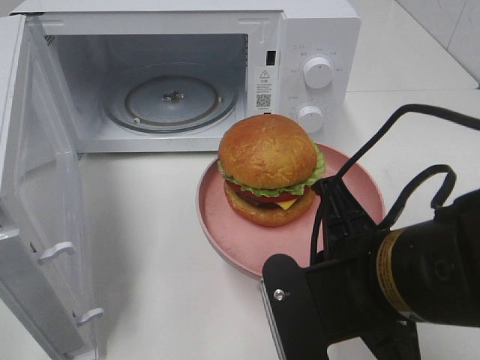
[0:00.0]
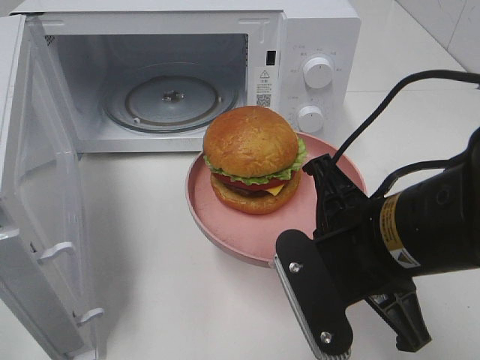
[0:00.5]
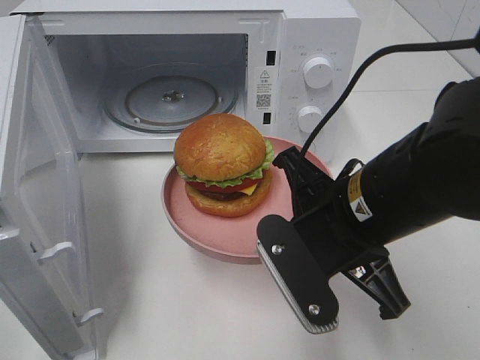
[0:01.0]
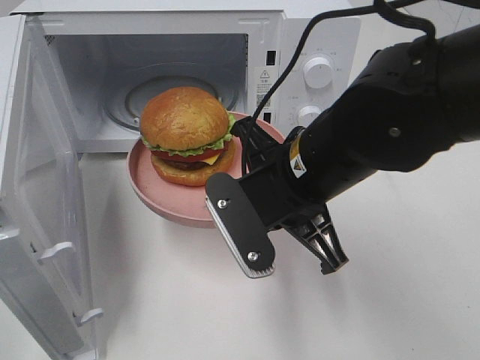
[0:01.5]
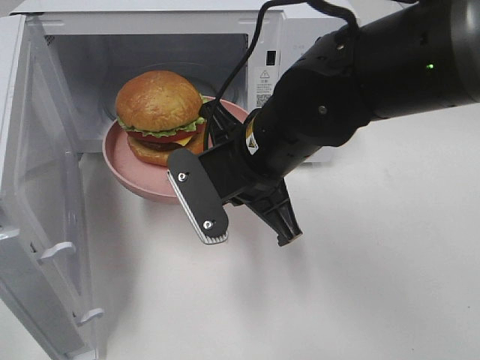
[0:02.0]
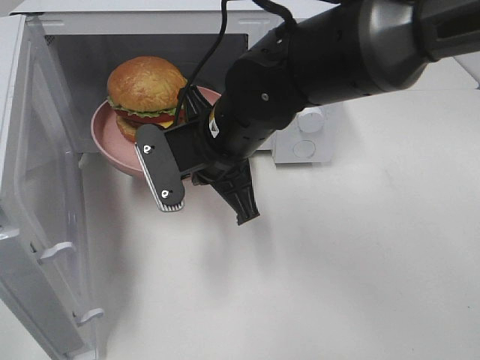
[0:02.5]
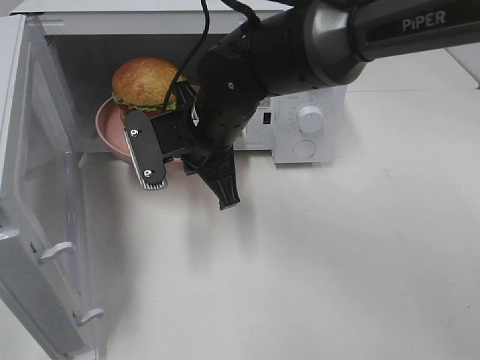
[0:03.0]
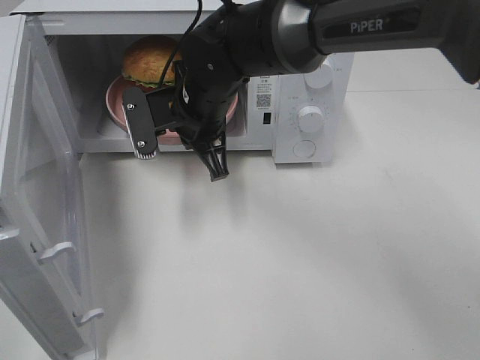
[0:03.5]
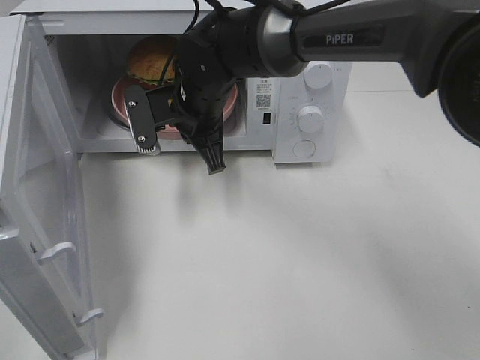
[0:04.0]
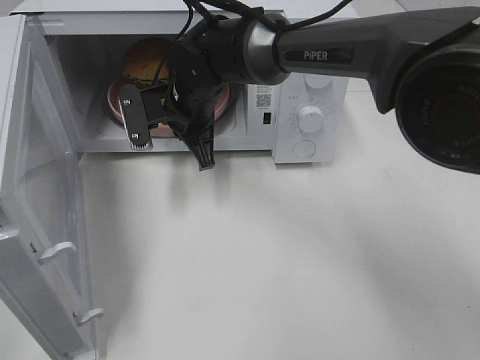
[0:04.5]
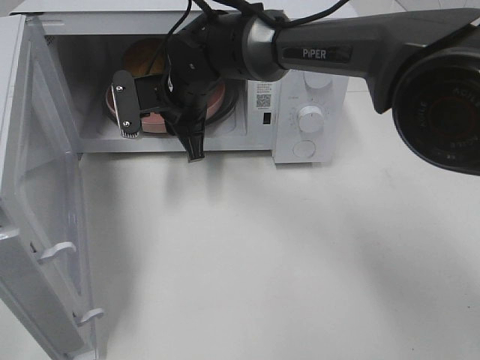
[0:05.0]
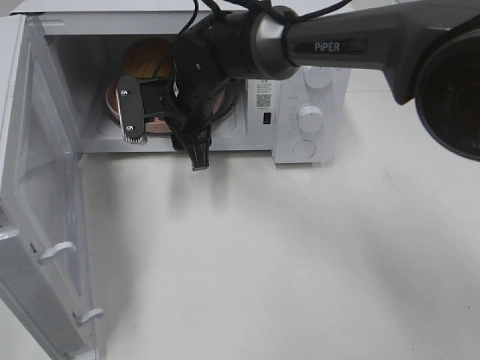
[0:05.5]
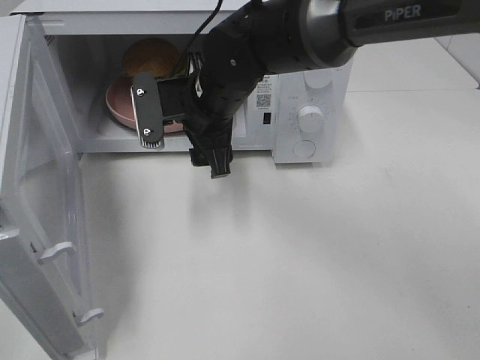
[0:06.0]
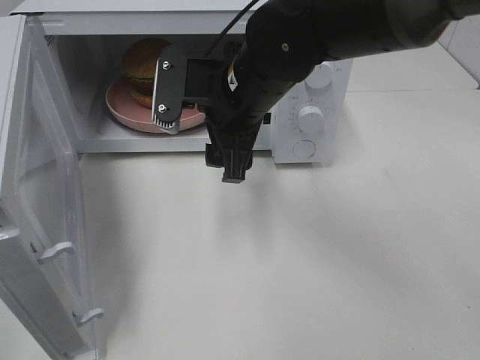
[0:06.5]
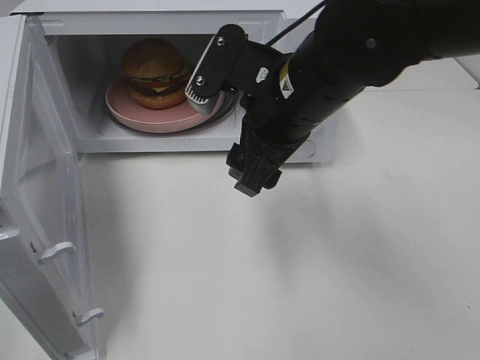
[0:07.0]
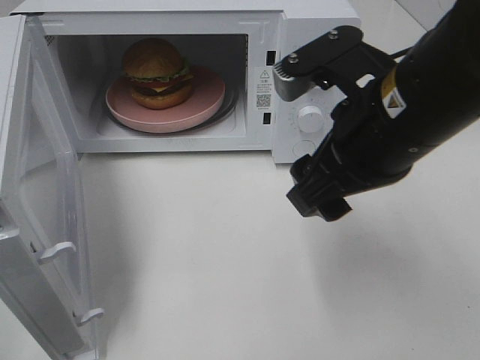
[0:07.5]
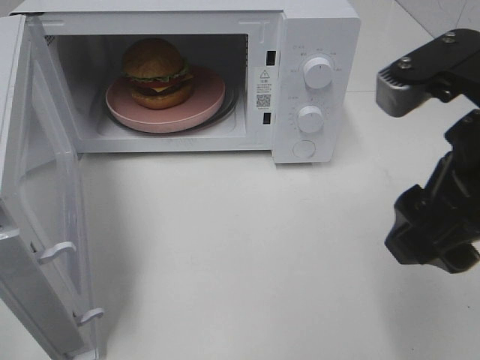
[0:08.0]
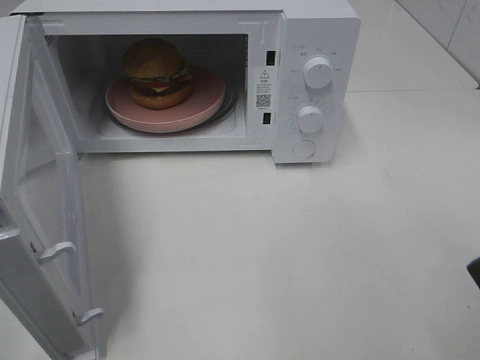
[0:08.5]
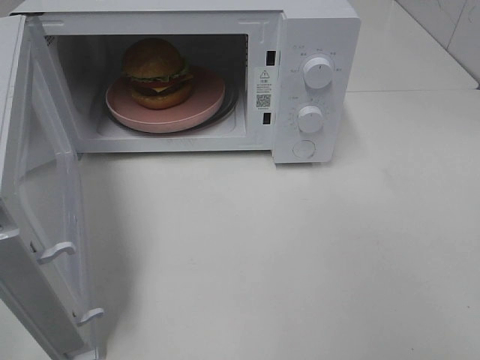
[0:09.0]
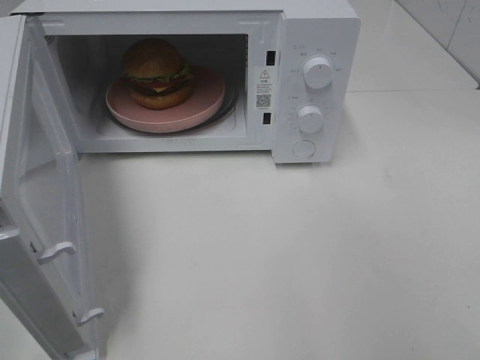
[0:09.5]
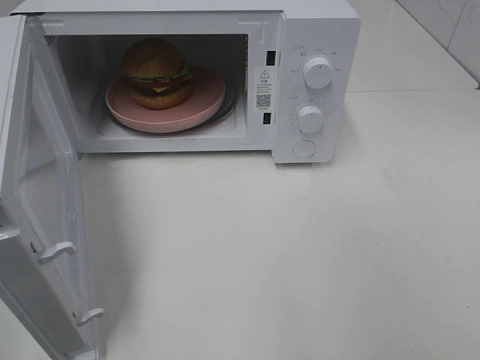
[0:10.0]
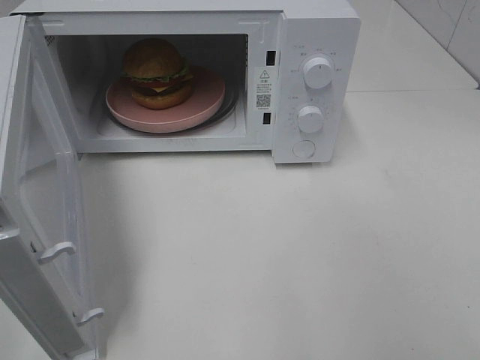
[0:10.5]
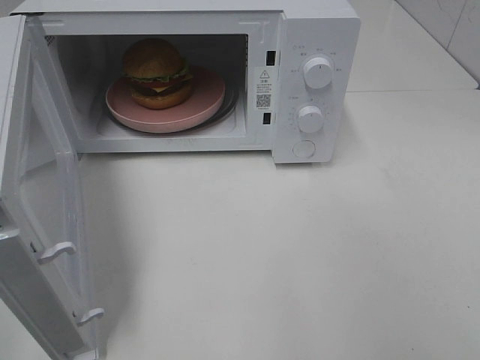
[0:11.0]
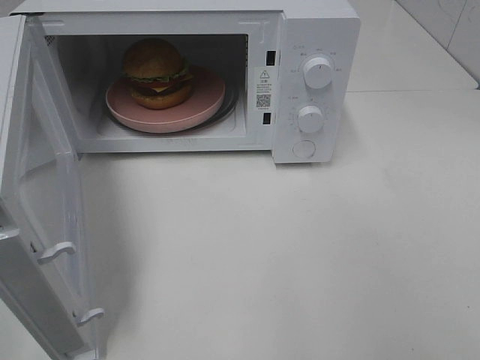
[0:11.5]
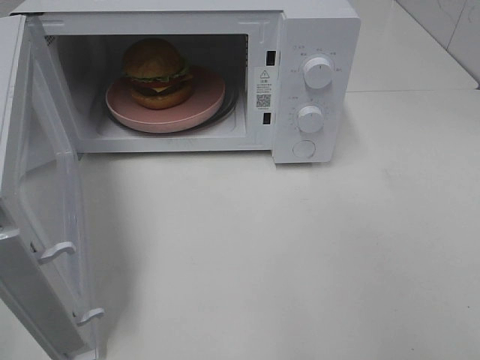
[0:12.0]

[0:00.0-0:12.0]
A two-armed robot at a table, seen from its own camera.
Task of the whole recording: Heat the burger.
Step, 0:00.0 to 0:04.5: Right hand: place the plate in the microwave.
0:00.0 to 0:02.0: The right gripper is displaced forward and to the left by roughly 15 cm.
0:02.0 to 0:04.0: The right gripper heads forward and to the left, covering about 15 cm.
0:04.0 to 0:06.0: The right gripper opens its fingers.
0:06.0 to 0:08.0: The right gripper shifts roughly 30 cm backward, to the right and upward.
0:08.0 to 0:10.0: The right gripper shifts approximately 20 cm backward and to the right.

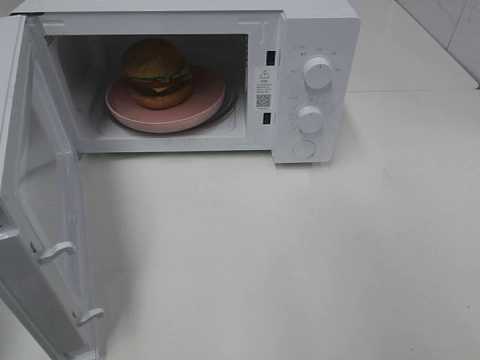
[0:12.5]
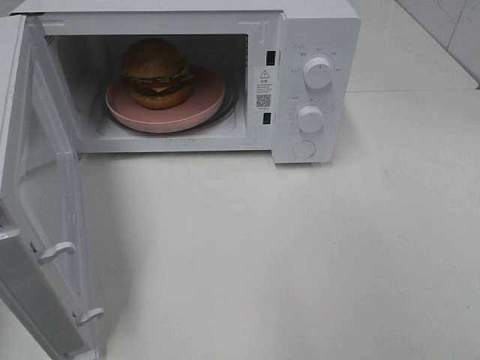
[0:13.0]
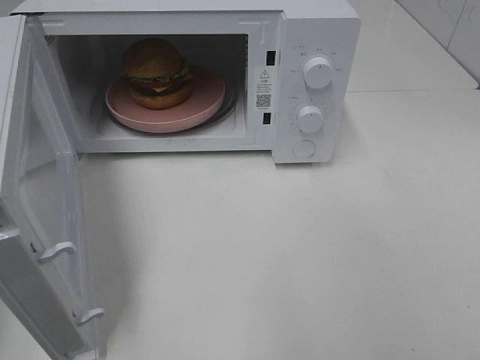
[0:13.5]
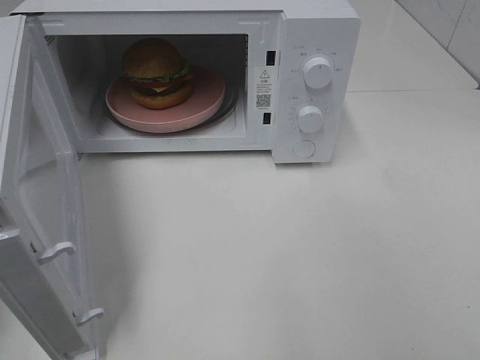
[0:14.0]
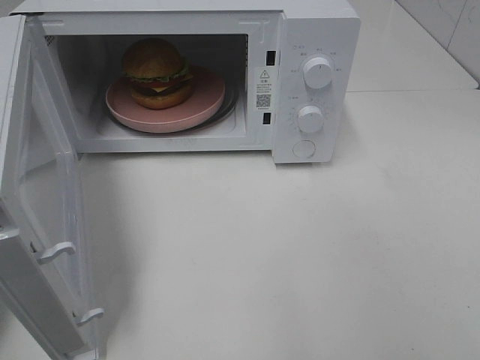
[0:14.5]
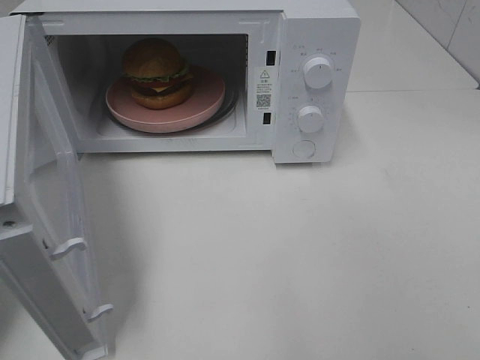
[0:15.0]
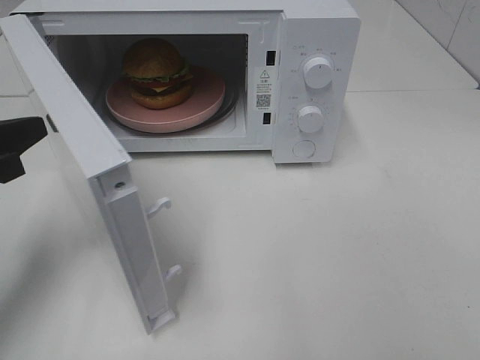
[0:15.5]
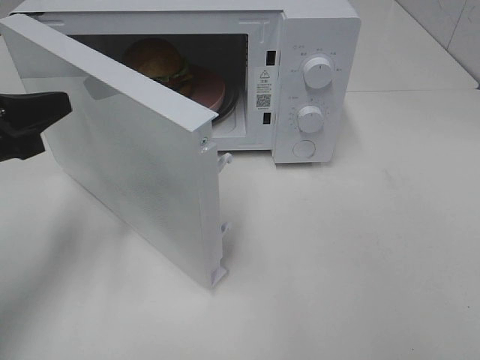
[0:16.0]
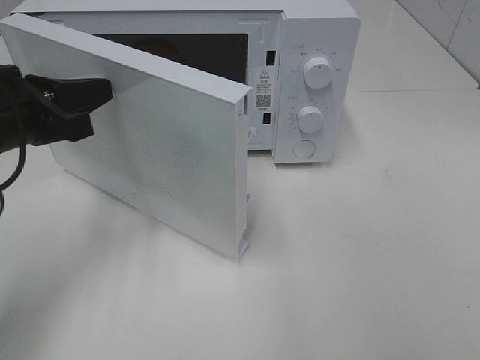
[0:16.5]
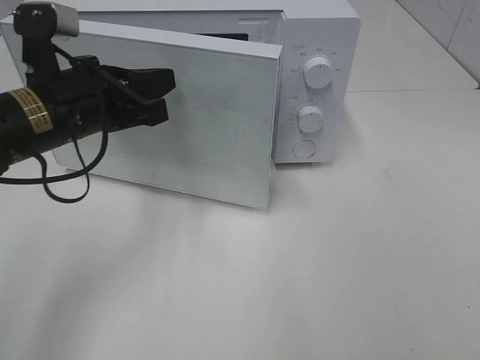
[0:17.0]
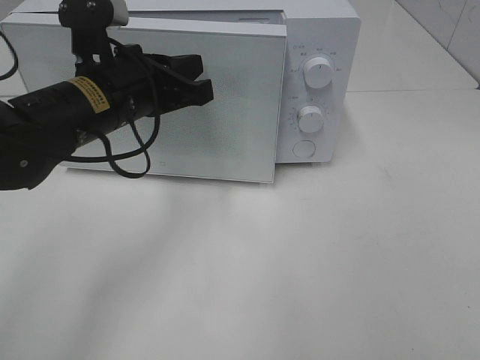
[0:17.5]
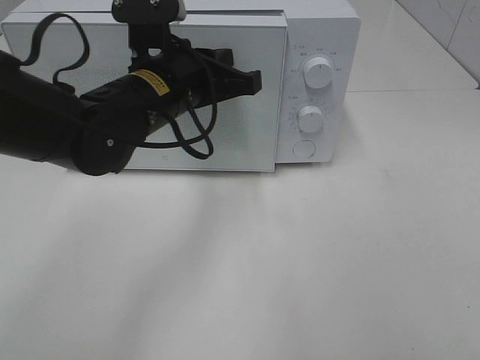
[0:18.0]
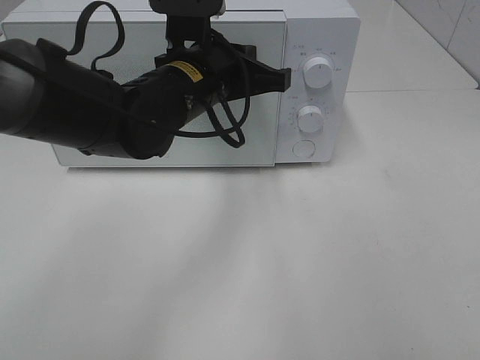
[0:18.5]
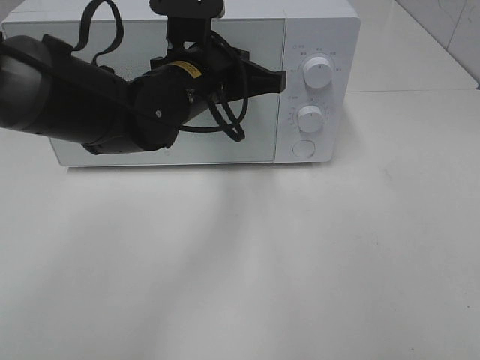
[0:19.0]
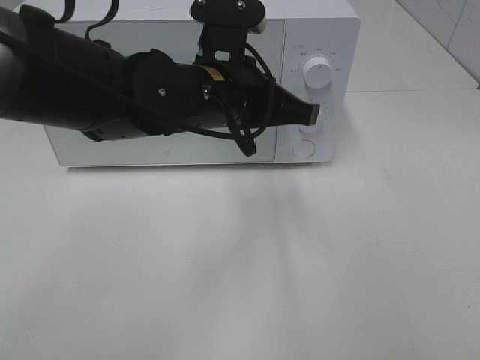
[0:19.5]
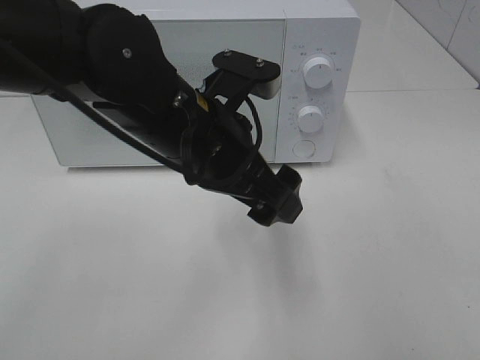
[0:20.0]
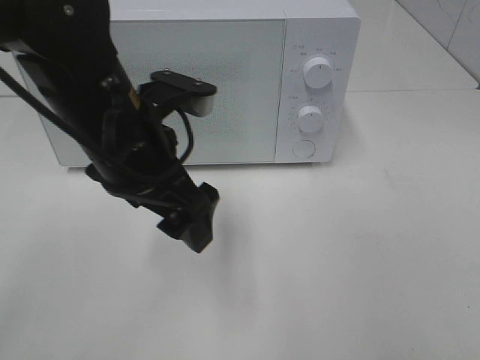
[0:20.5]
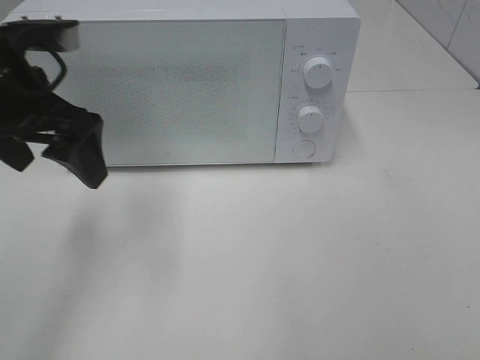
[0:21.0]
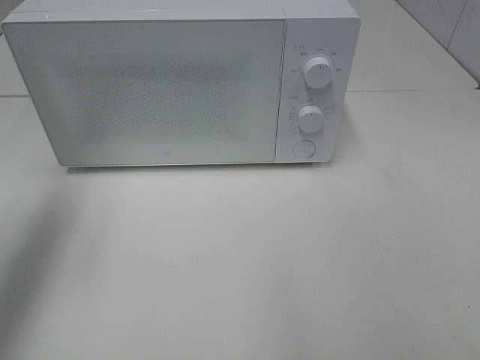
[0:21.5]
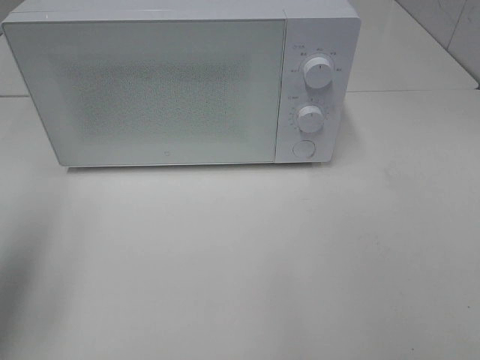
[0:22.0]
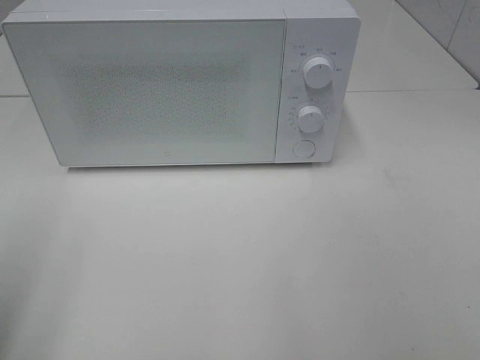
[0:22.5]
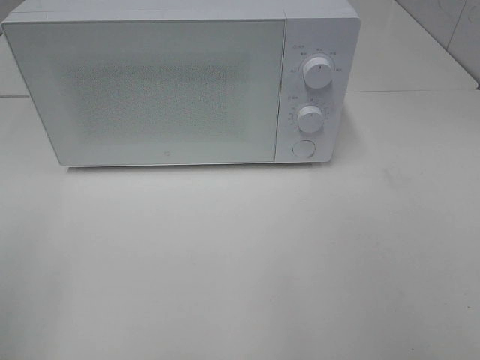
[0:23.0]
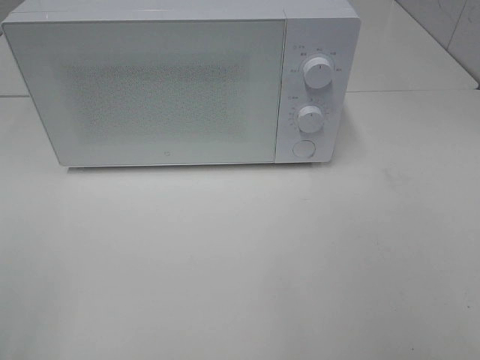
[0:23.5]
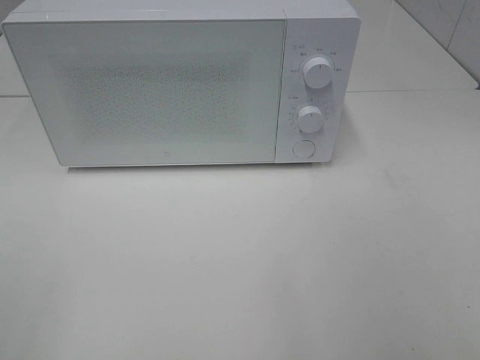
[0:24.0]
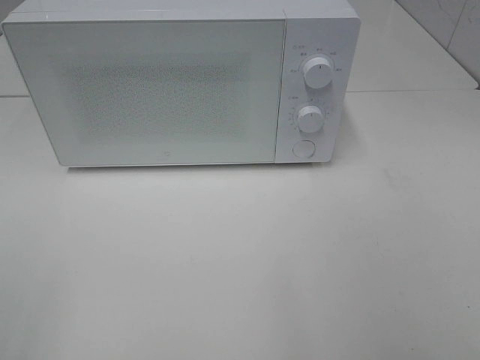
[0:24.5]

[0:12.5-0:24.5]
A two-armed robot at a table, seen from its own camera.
Task of the whole recording: Heat the burger.
Step, 0:12.5 to 0:19.0: Left hand: close the microwave door.
0:14.5 to 0:16.5: The left gripper travels to the right and forward by approximately 10 cm.
0:16.5 to 0:18.5: The left gripper is displaced to the right and forward by about 20 cm.
0:18.5 to 0:20.5: The left gripper shifts roughly 10 cm backward and to the left, and opens.
0:20.5 to 0:22.5: The left gripper shifts approximately 25 cm to the left and backward.

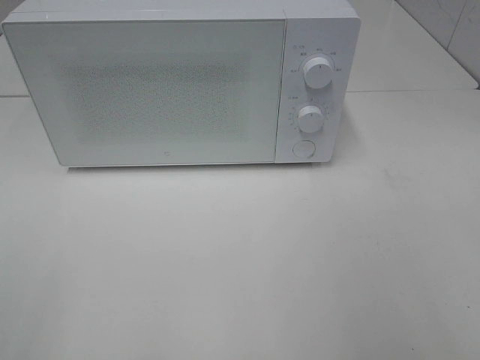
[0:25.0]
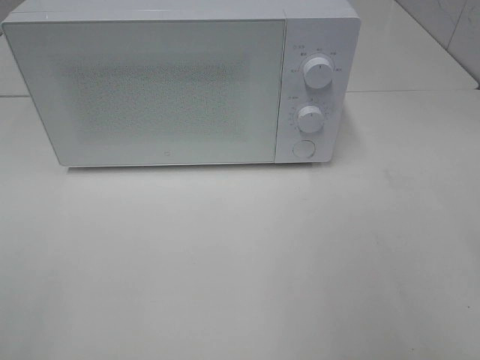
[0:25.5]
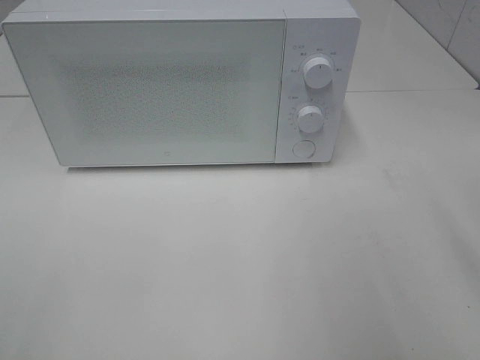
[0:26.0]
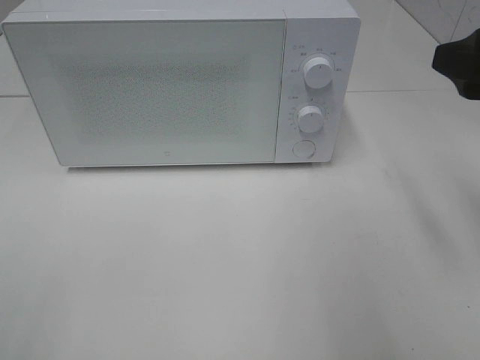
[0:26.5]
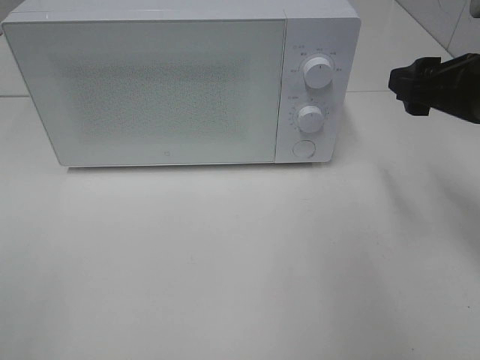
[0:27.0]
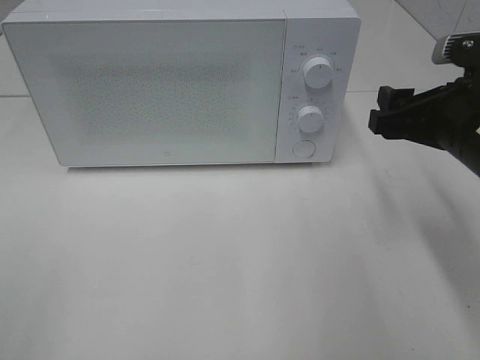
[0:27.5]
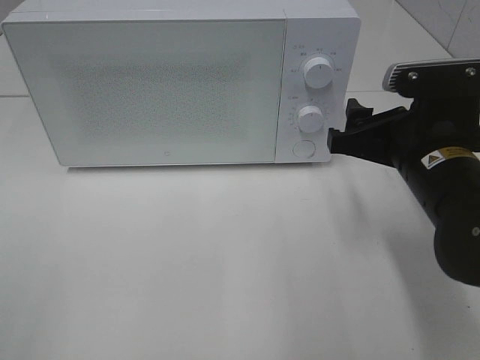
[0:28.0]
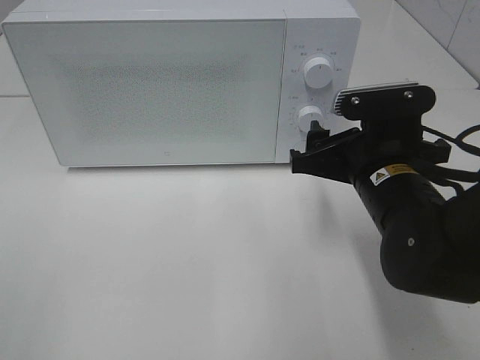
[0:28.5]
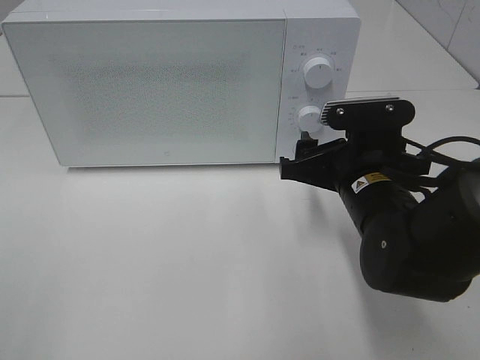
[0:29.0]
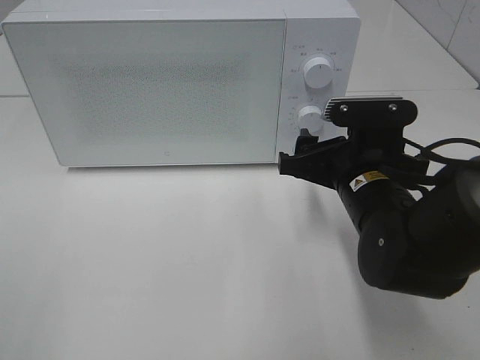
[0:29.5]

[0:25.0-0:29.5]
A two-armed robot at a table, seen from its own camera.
Task of the whole recording: Heat the burger.
0:25.0 to 0:27.0: The right gripper shifts some 20 cm forward.
0:27.0 to 0:29.5: The right gripper shifts roughly 15 cm to the left and downward.
